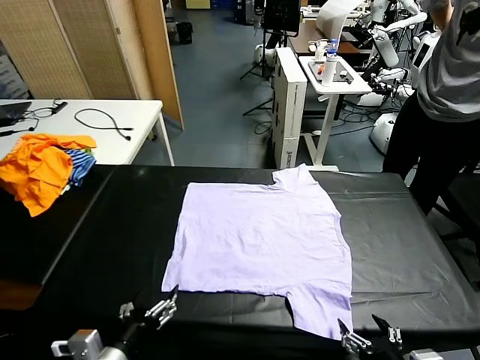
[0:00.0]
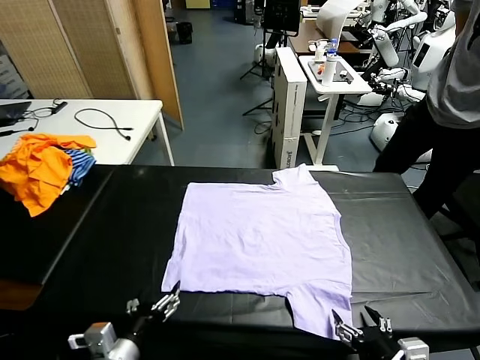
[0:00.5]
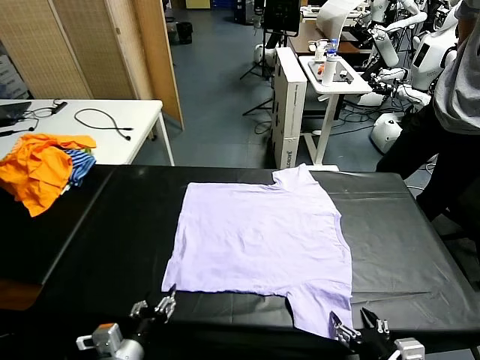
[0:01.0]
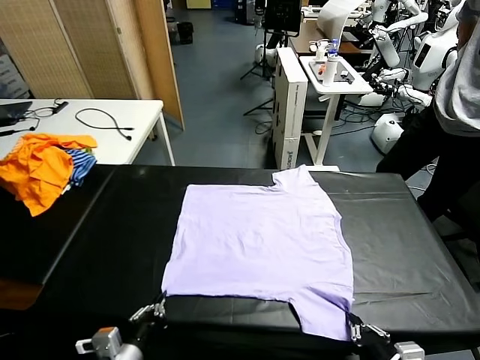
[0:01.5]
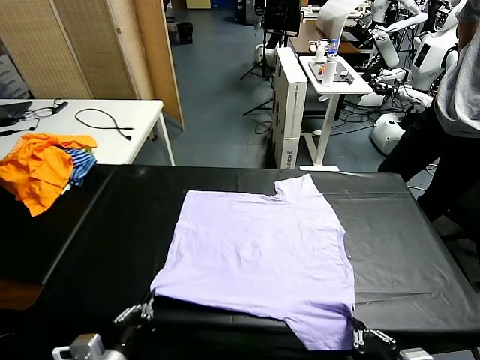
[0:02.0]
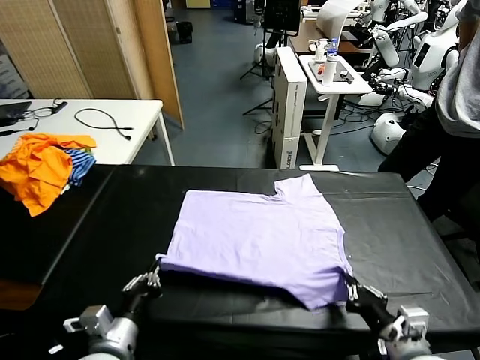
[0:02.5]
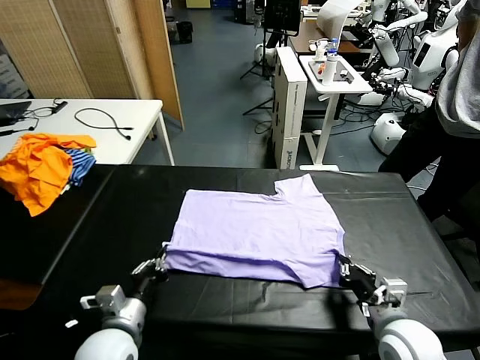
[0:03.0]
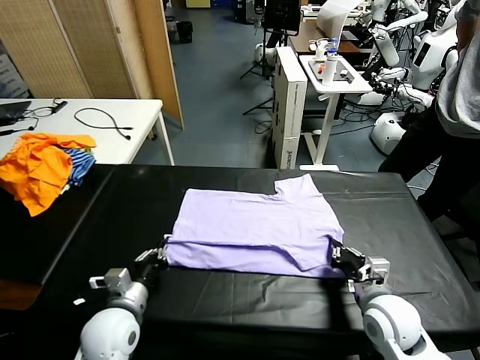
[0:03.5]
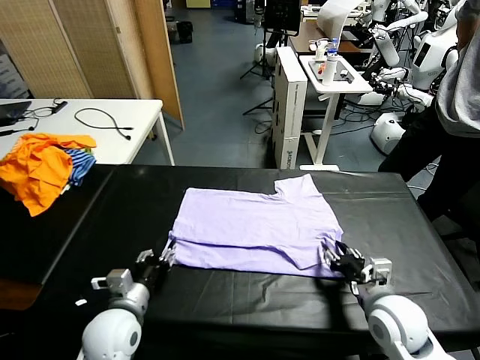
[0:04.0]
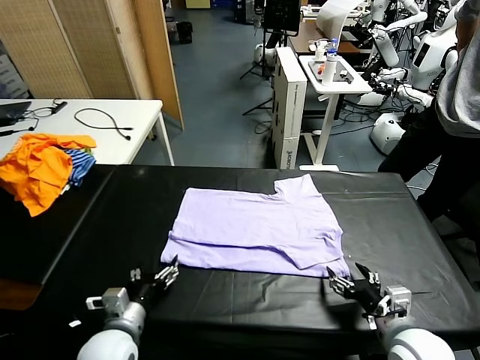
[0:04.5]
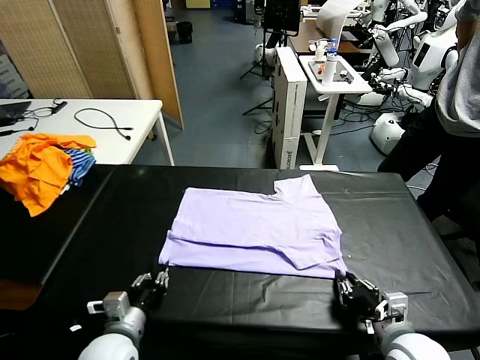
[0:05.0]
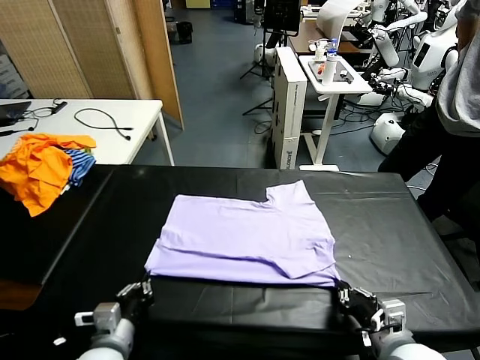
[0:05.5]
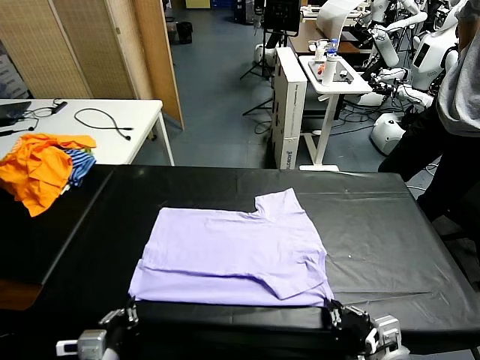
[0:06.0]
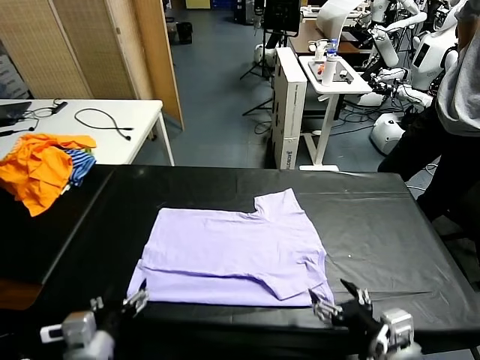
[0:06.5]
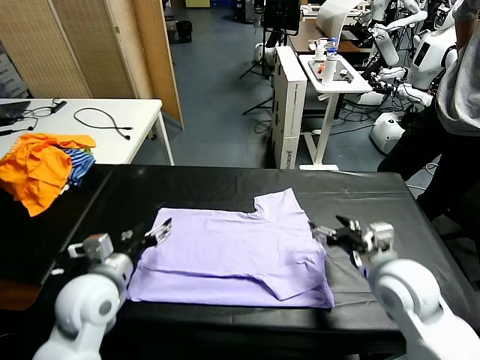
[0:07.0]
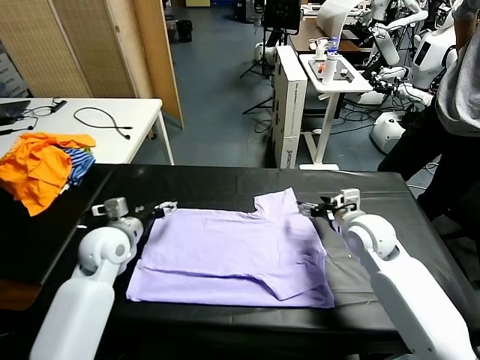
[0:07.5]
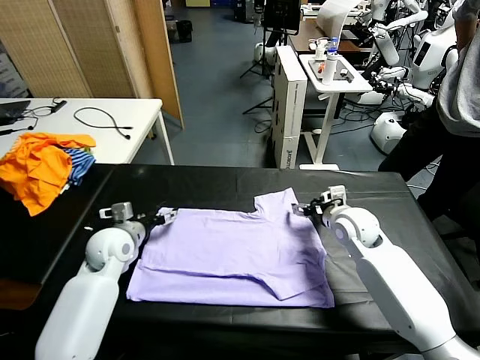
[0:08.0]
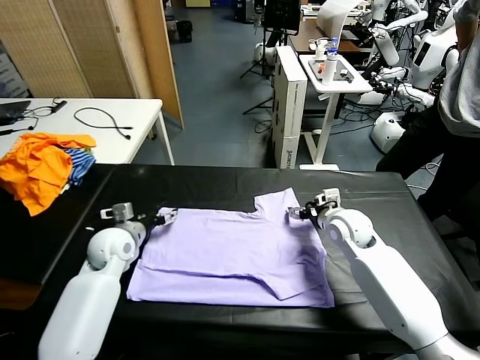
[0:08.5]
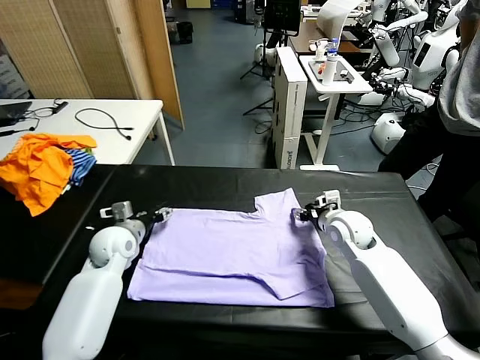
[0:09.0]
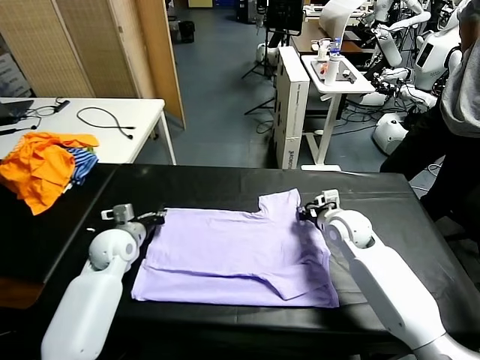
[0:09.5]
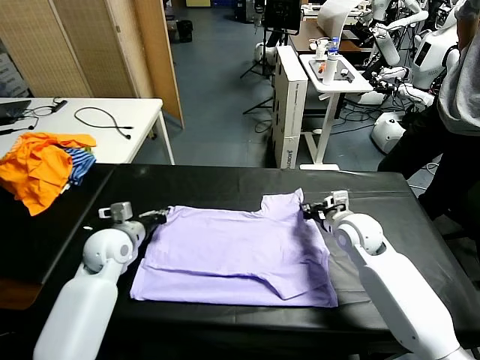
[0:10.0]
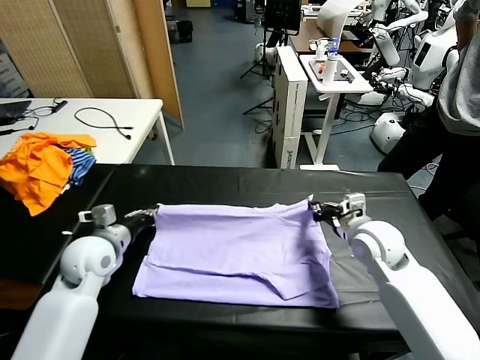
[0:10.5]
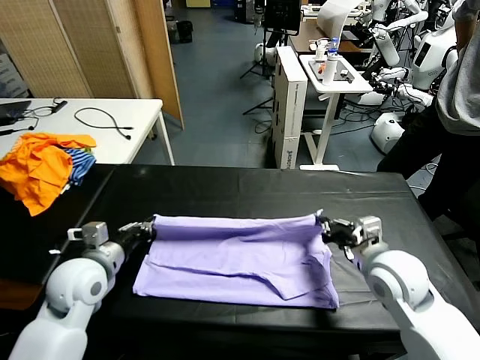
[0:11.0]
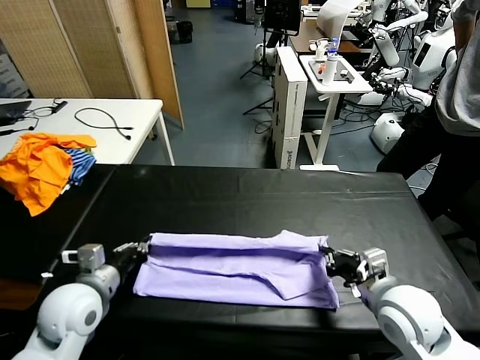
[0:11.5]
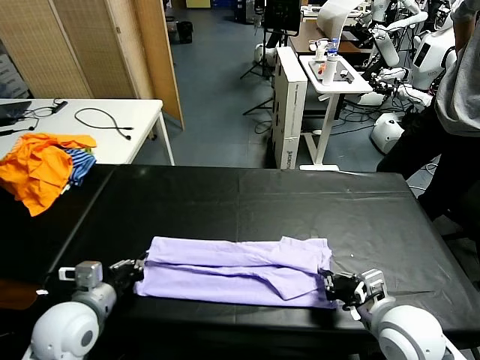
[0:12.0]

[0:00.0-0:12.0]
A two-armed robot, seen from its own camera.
Task of the whole recording: fold and organize the clothes.
Step, 0:00.0 to 0:01.0: use both grippers simultaneously to clamp the lower edge of the clothing fabric.
Step, 0:02.0 to 0:04.0: use both grippers to drag the lower edge of the fabric forward and fold it over the upper edge.
Step, 0:04.5 to 0:06.0: Drag the clothes downward with both gripper.
Step, 0:06.5 to 0:09.5: use both grippers simultaneously to clamp the upper edge of the clothing fabric.
0:02.0 to 0:04.0: Both grippers travel together forward, some 10 cm. The left gripper opens up; the right gripper opens.
0:04.0 to 0:06.0: The two grippers go approximately 10 cm backward. The left gripper closes its fingers, while the right gripper closes.
0:06.0 to 0:08.0: Both grippers travel together forward, approximately 30 cm. The left gripper opens its fingers. Meanwhile the right gripper opens up.
0:08.0 to 0:10.0: The right gripper closes up. Meanwhile the left gripper closes up.
0:10.0 to 0:12.0: The two grippers go approximately 20 cm backward.

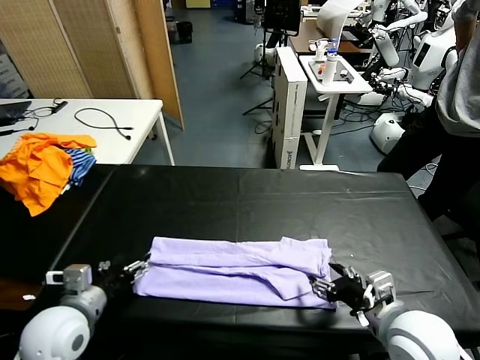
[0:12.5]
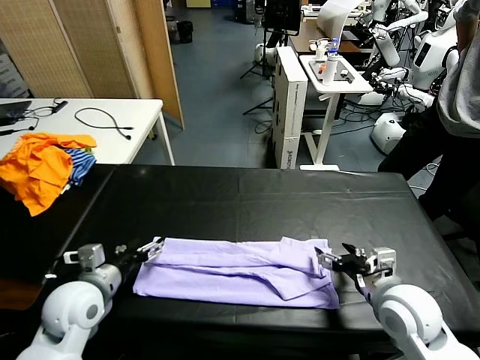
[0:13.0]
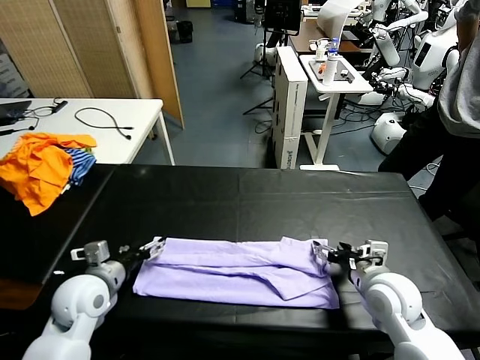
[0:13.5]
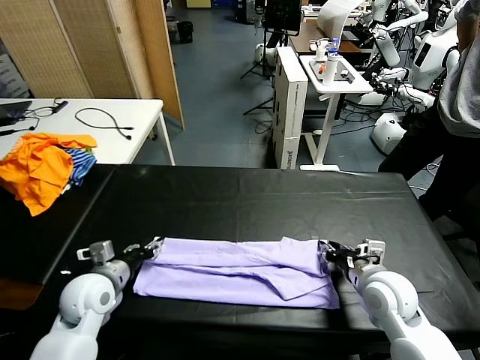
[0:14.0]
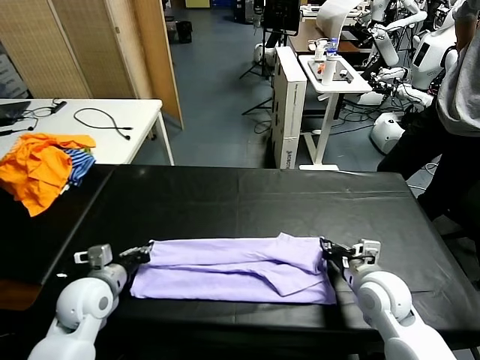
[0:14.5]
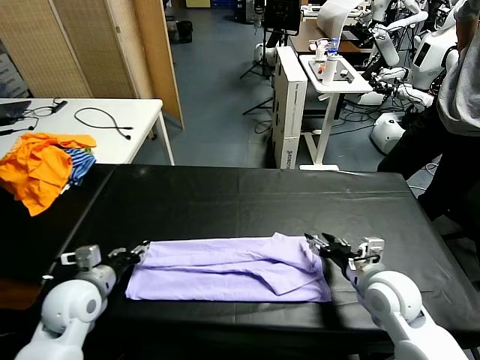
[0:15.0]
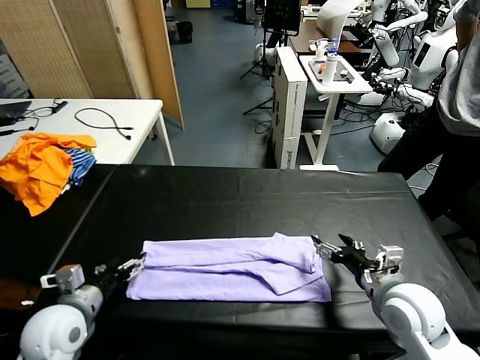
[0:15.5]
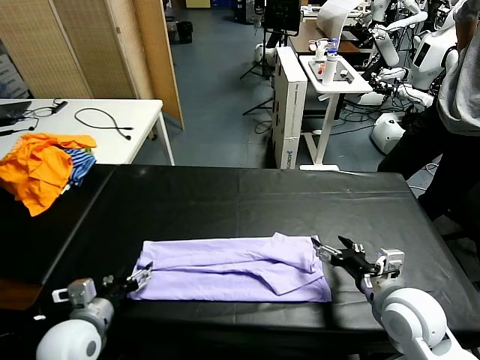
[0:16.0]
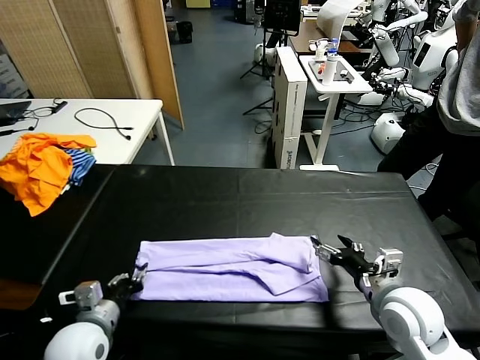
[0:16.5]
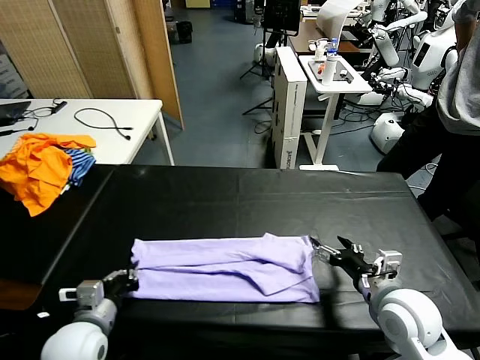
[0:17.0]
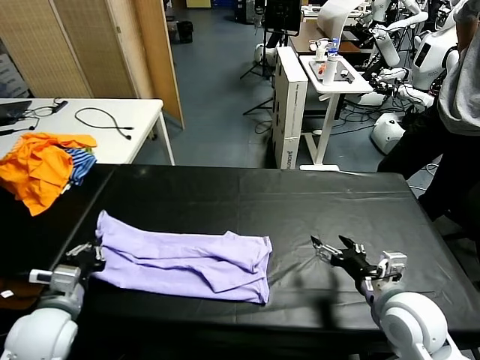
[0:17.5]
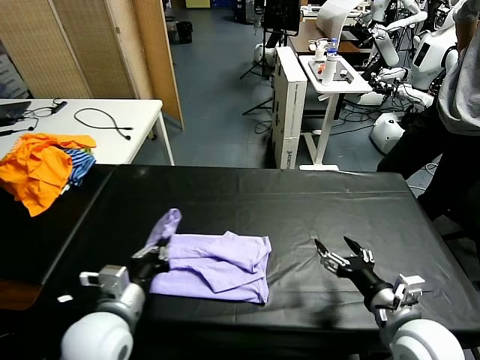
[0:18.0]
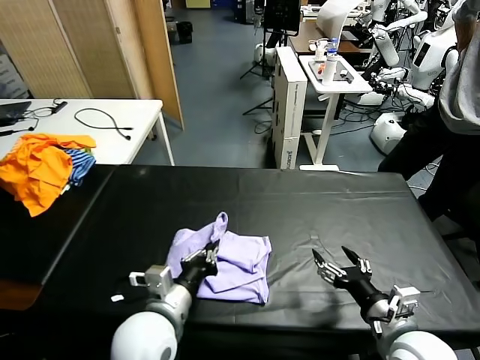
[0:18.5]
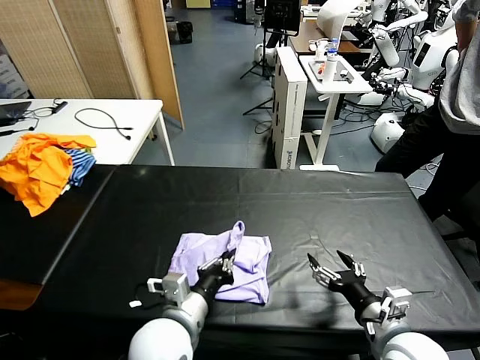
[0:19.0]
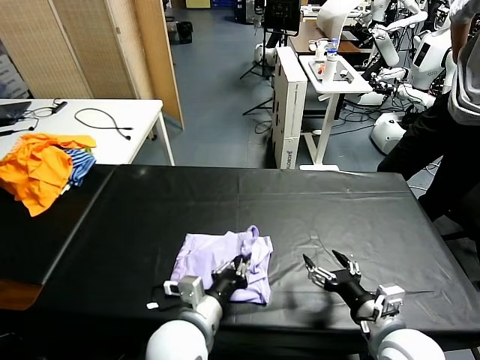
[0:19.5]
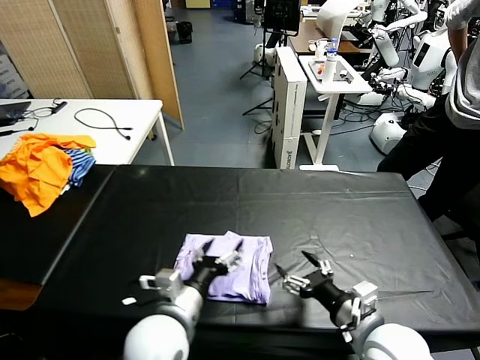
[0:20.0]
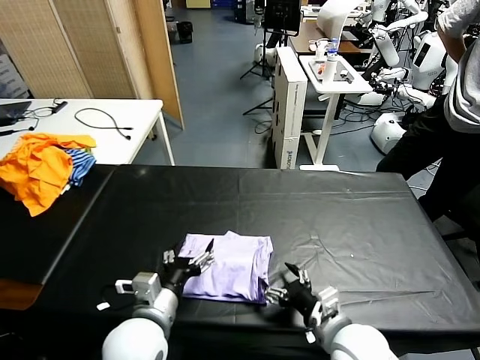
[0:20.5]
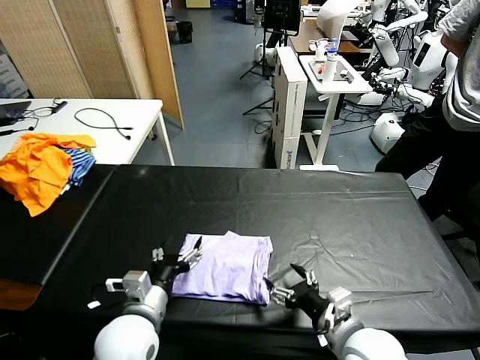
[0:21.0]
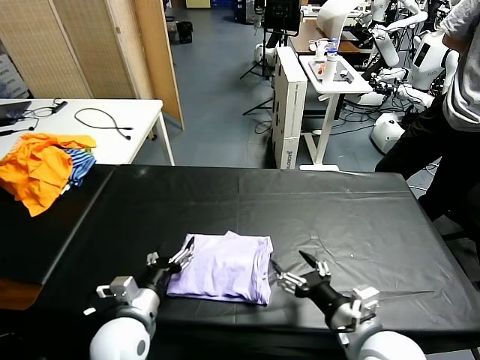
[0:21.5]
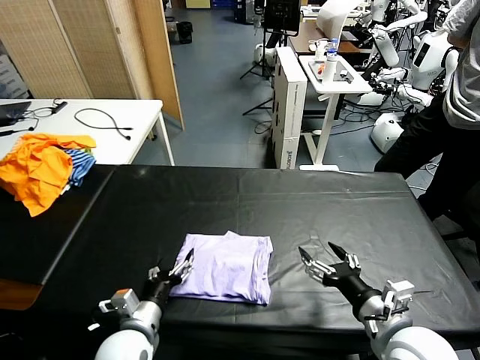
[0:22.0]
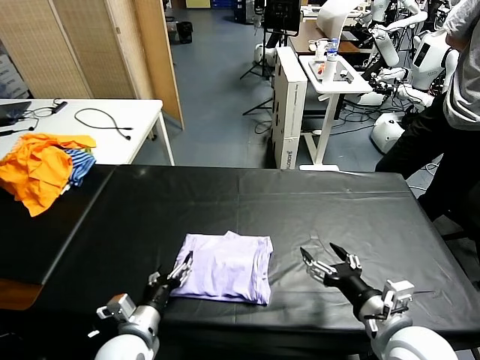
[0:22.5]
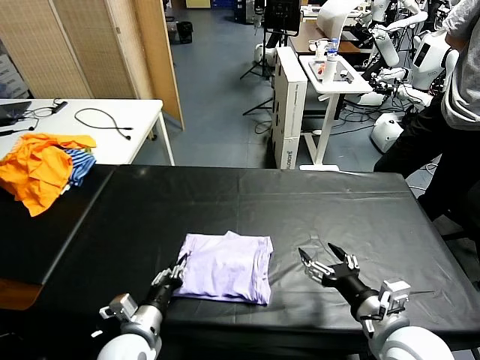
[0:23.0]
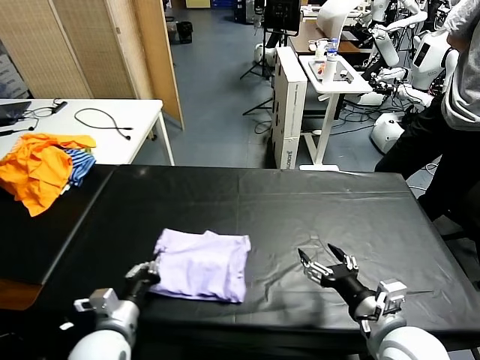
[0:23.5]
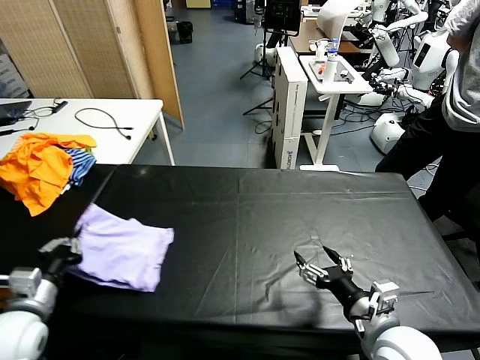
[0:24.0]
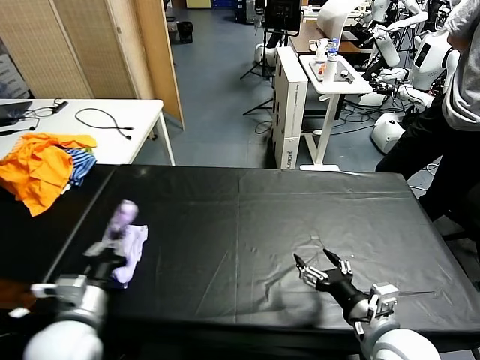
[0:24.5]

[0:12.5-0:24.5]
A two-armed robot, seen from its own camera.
Task of the whole recording: fold and organize the clothes.
Step, 0:12.5 to 0:15.0: use both grippers to drag the upper edge of the fabric backward and fold it over the lower edge.
Step, 0:15.5 to 0:16.5: use the left gripper to clamp the left edge of the fabric.
Step, 0:17.0 to 0:21.0: use the left gripper to drag the left edge of the fabric to the left and folds it over the right edge.
0:12.5 to 0:14.5: The right gripper heads forward and downward, covering some 10 cm, and closes; the left gripper heads forward, covering some 5 cm, and closes its fingers.
0:14.5 to 0:16.5: The right gripper is displaced backward by some 5 cm, and opens up; the left gripper goes approximately 10 cm backward, and opens.
0:16.5 to 0:18.5: The right gripper shifts approximately 5 cm backward. The left gripper moves to the right and upward, roughly 15 cm, and closes its fingers.
0:18.5 to 0:20.5: The left gripper opens up. The right gripper moves to the left, about 10 cm.
0:20.5 to 0:22.5: The right gripper heads to the right and upward, covering about 10 cm, while the left gripper goes roughly 10 cm downward and to the left.
0:22.5 to 0:24.5: The left gripper shifts about 15 cm upward and to the left, and closes up.

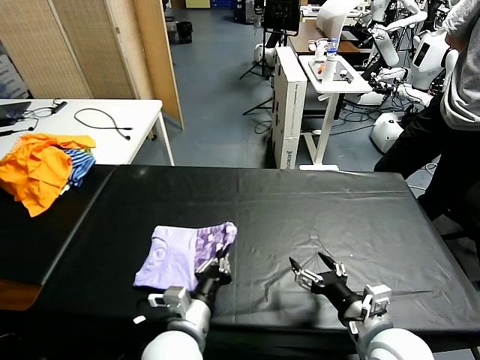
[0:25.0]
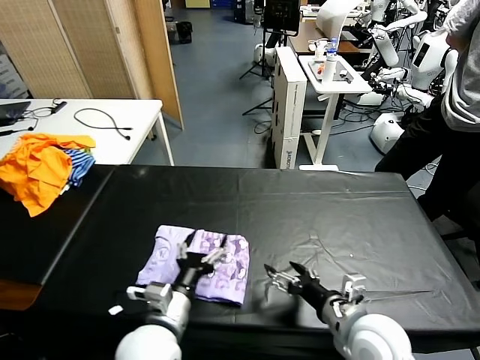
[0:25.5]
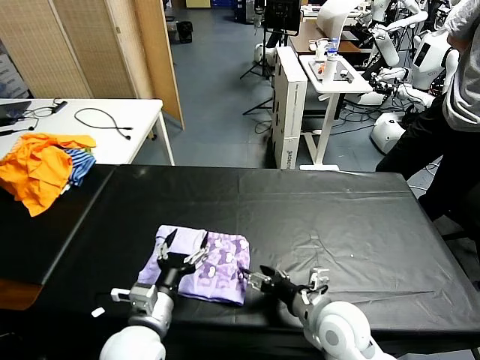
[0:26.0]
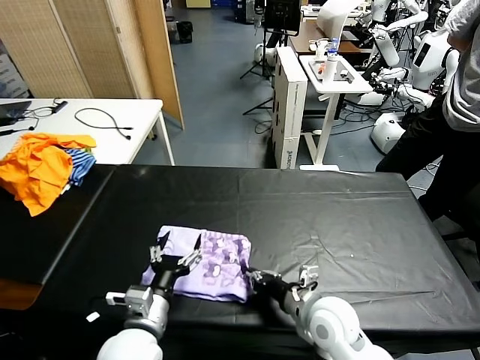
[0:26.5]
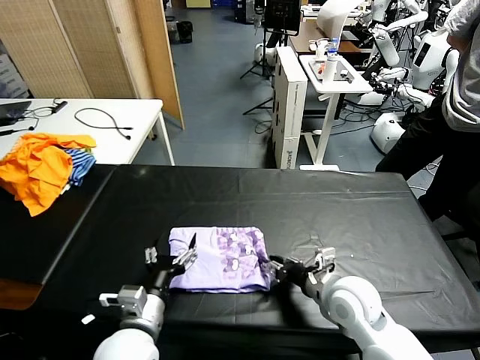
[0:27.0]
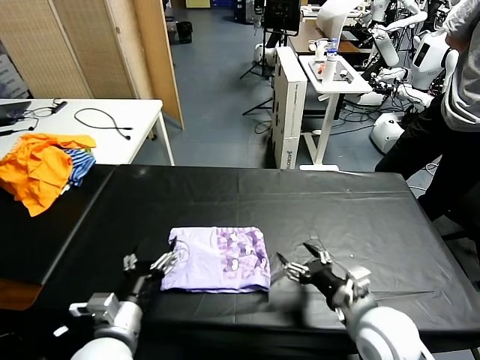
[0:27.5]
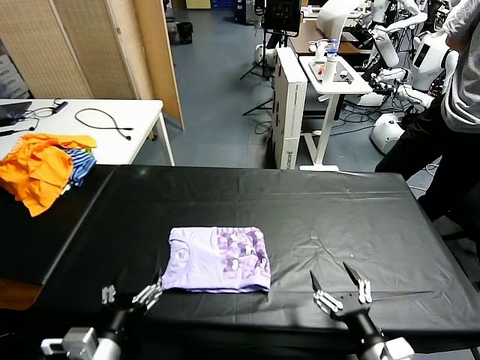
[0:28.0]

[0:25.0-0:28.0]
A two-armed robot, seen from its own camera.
Task of the whole recording: fold and organize the clothes.
Step, 0:25.5 to 0:27.0: Drag the clothes to the center of the table.
0:25.0 to 0:26.5: The right gripper travels to the left, forward and downward by approximately 15 cm, and closes up. The left gripper shifts about 5 cm to the left, and opens.
0:26.5 to 0:28.0: The right gripper heads backward and to the right, covering some 15 cm, and opens its fingers. Meanwhile the left gripper goes approximately 10 cm backward and to the left.
